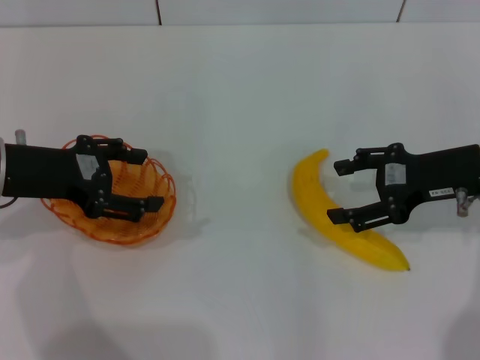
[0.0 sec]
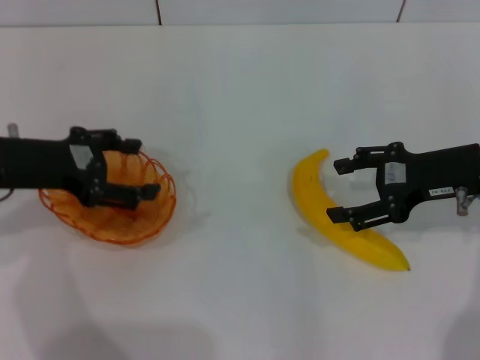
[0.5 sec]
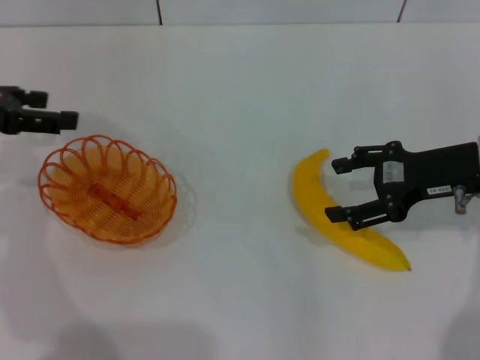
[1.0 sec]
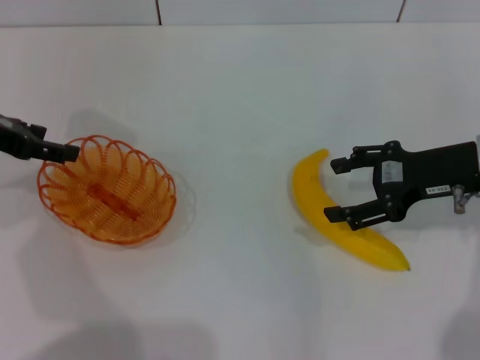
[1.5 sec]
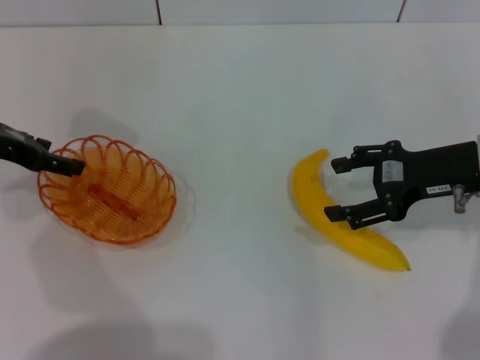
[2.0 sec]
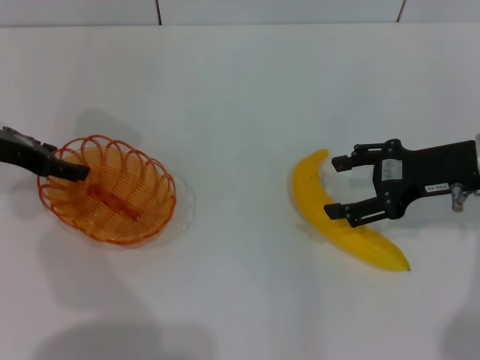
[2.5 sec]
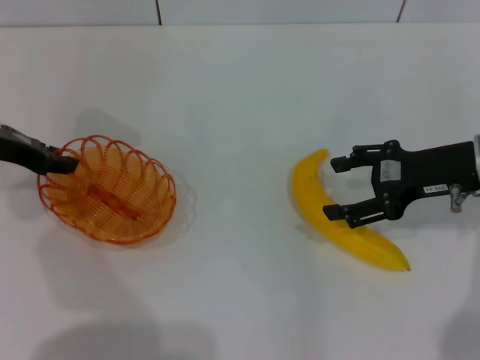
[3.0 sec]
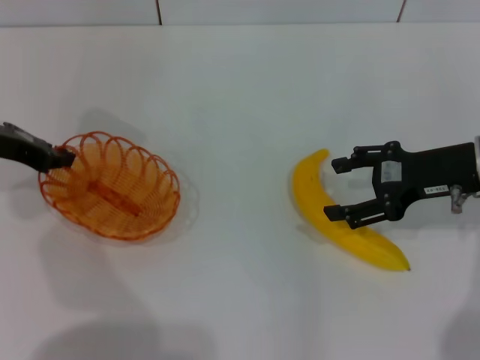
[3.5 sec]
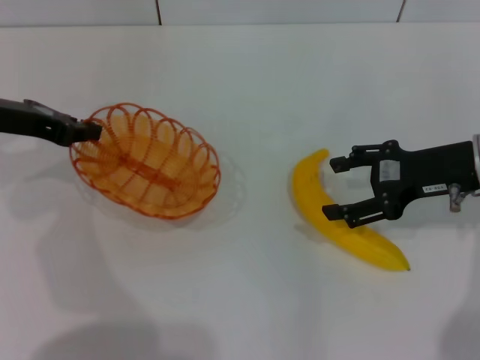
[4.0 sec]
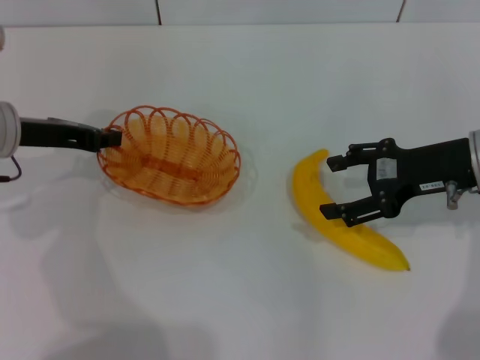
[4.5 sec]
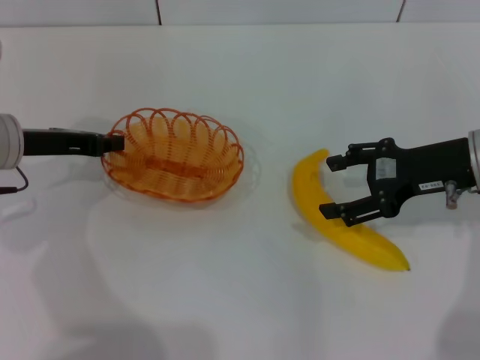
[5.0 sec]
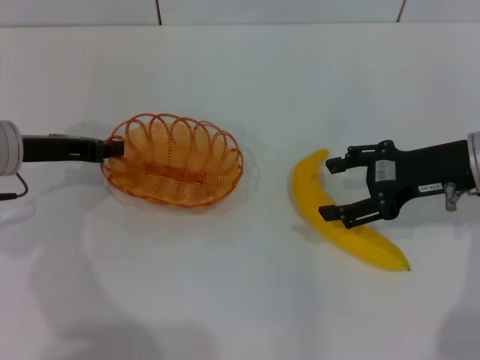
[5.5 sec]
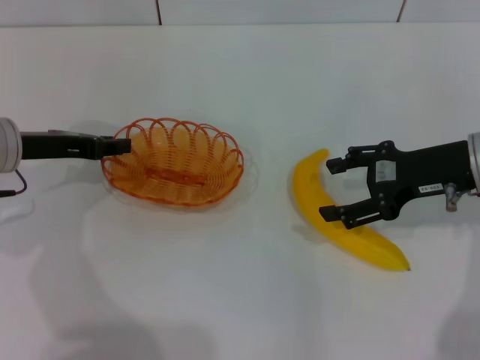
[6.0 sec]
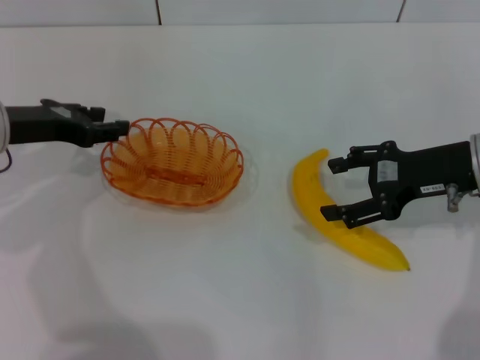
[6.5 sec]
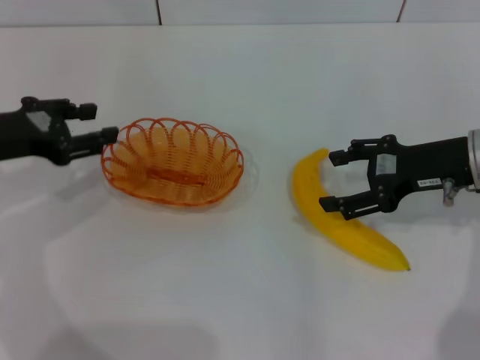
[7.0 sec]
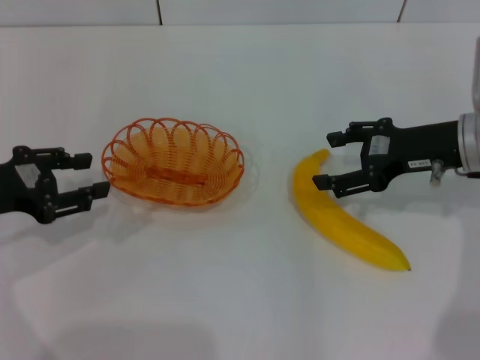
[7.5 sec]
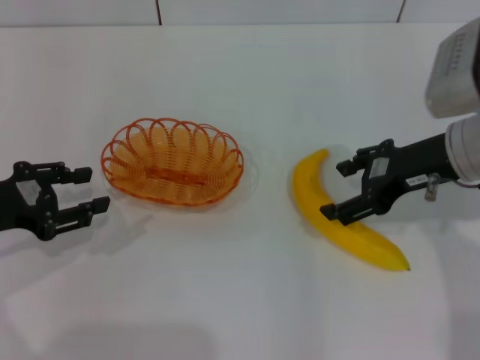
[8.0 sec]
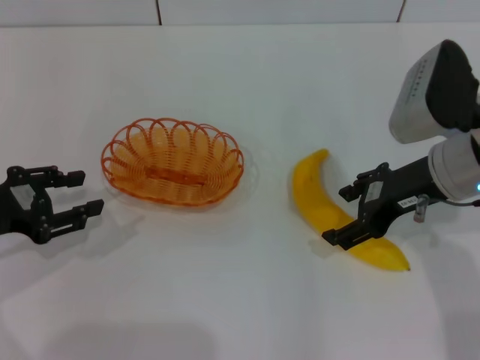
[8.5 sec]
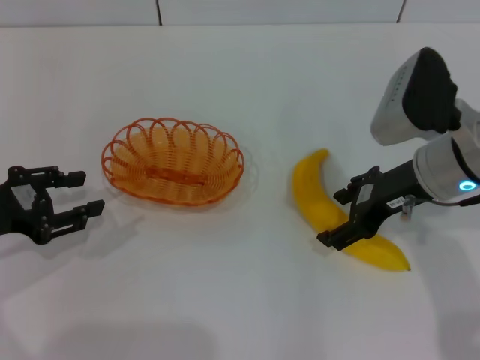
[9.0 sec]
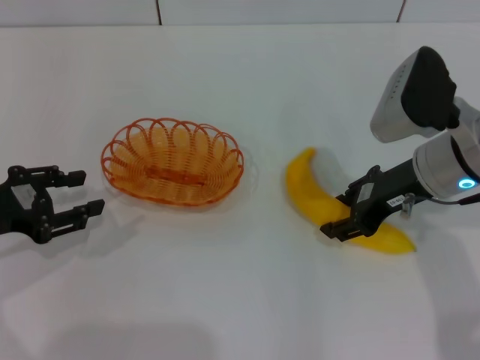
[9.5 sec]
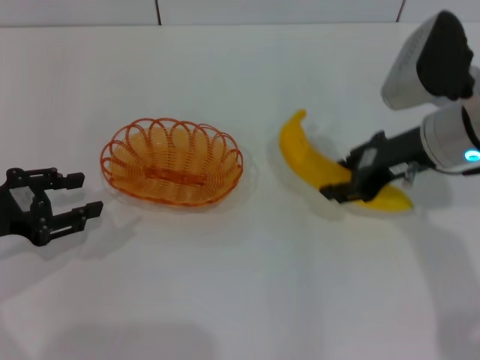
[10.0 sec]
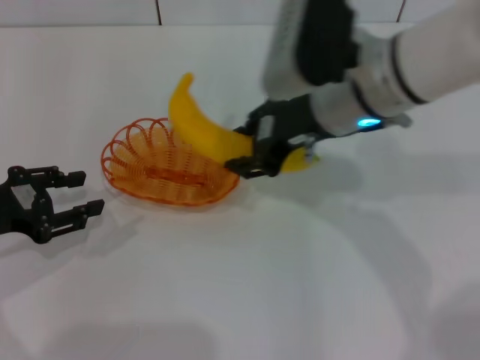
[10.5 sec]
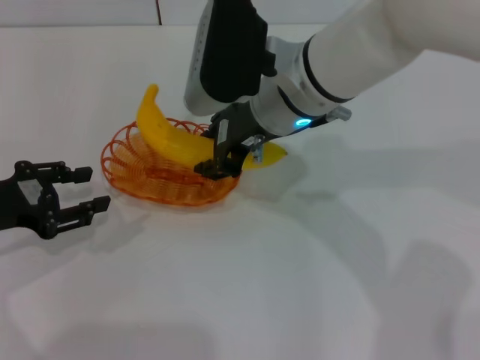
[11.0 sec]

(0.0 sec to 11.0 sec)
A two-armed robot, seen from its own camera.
Step, 0.0 sec - 4.0 sec: Pick up the basket with the left gripper.
Step, 4.5 sec - 6.5 sec: Place the basket in the center of view with the left gripper.
Step, 7.0 sec - 10.0 sec: Pick up the banana with the right gripper.
0.0 sec - 2.0 sec: The left gripper is displaced forward by about 5 cm.
2.0 sec - 3.5 sec: The left gripper closes up.
3.5 sec - 5.5 sec: The left gripper ends up about 5 cm from where it was.
5.5 sec - 7.5 sec: The left gripper goes about 5 cm backward, and opens up.
7.5 sec - 9.0 sec: The right gripper moves to the left, about 5 cm.
9.0 sec - 11.0 sec: The right gripper moves to the left, roughly 15 cm, and closes its fingers.

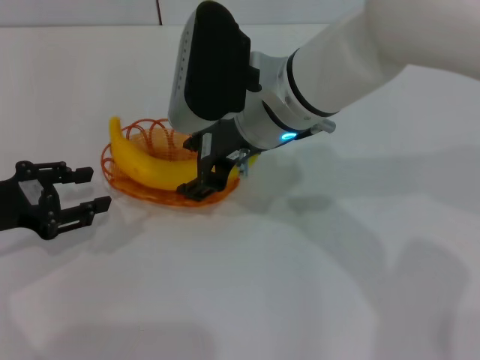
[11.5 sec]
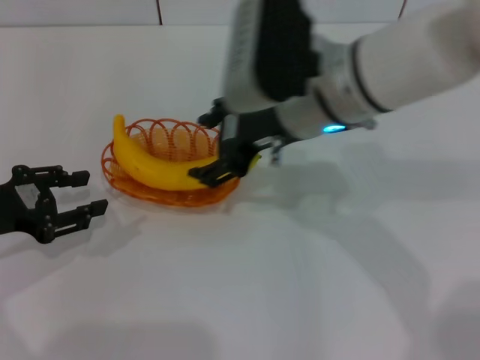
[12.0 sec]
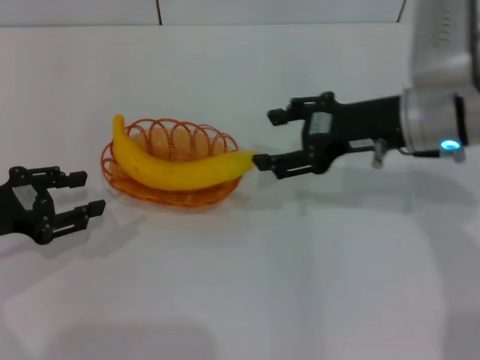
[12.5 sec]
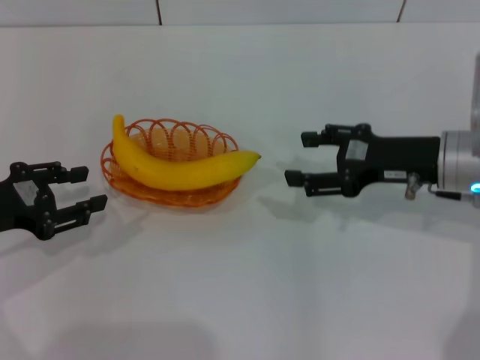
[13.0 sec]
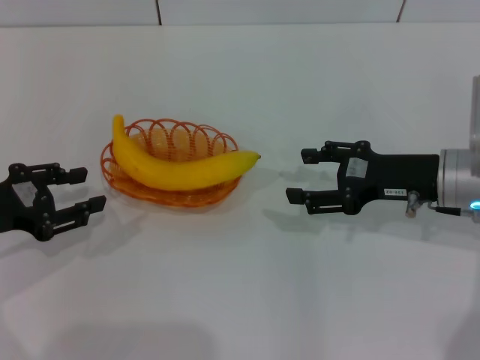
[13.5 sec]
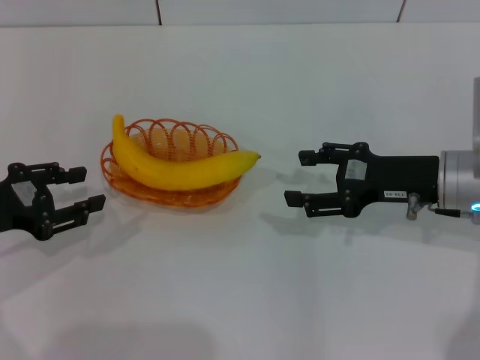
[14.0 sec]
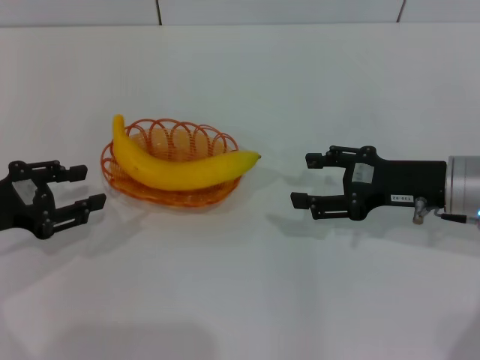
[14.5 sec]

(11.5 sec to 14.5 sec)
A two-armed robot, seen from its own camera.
11.5 sec - 13.0 sec: The right gripper travels to the right by roughly 20 cm, and opens.
13.0 sec - 14.5 sec: The grippers make only small movements.

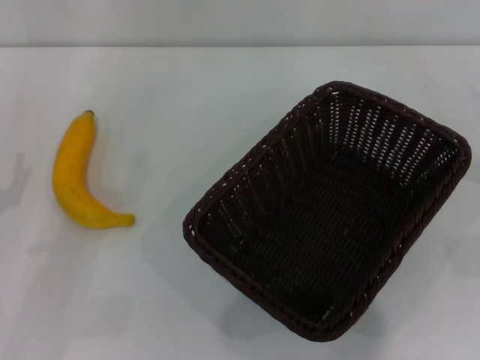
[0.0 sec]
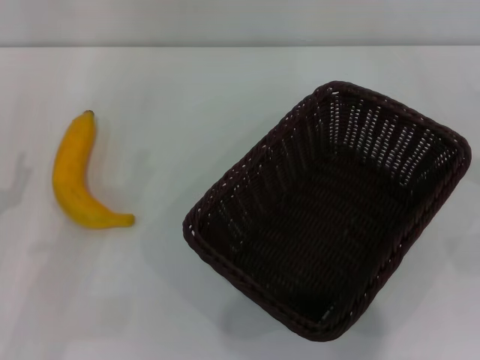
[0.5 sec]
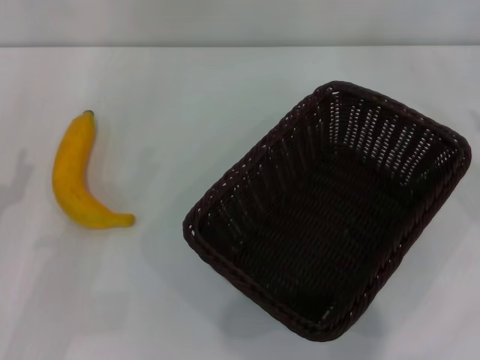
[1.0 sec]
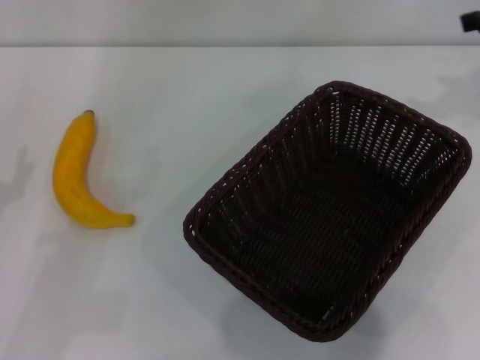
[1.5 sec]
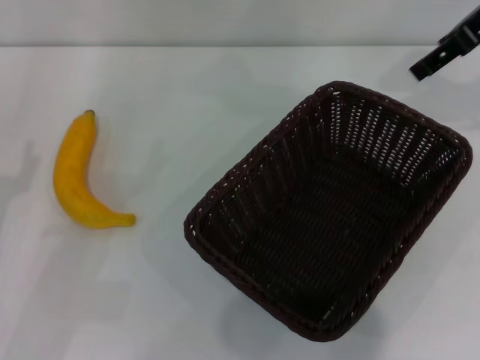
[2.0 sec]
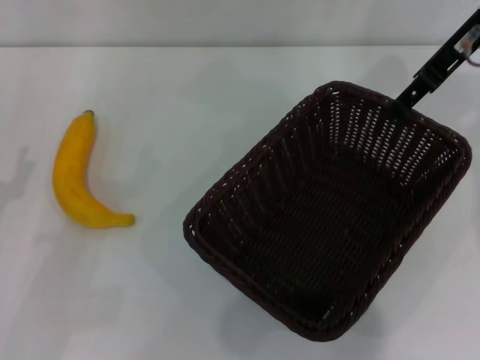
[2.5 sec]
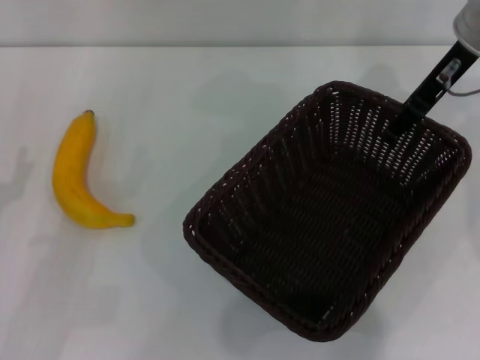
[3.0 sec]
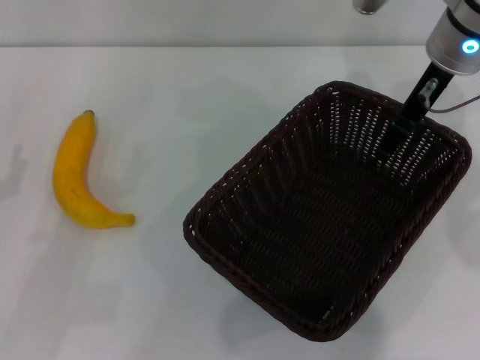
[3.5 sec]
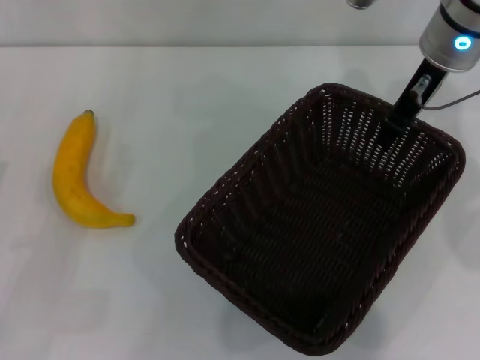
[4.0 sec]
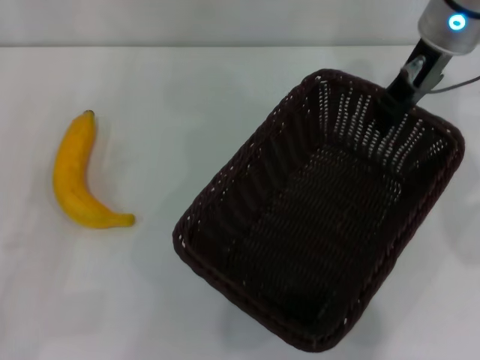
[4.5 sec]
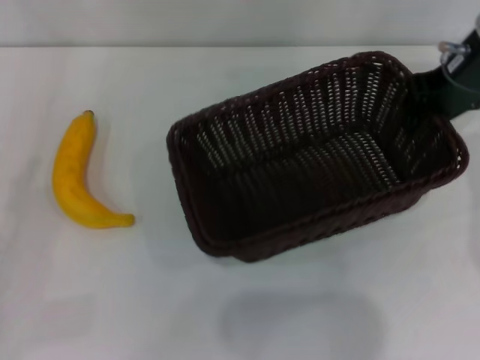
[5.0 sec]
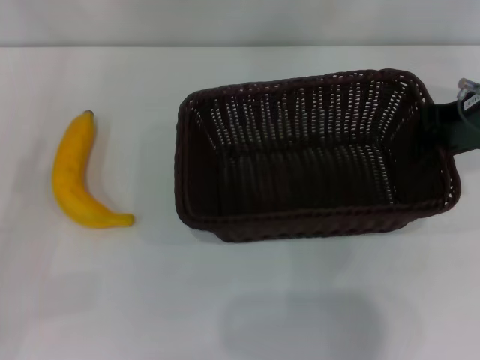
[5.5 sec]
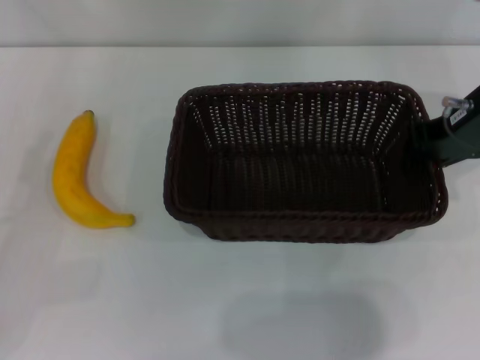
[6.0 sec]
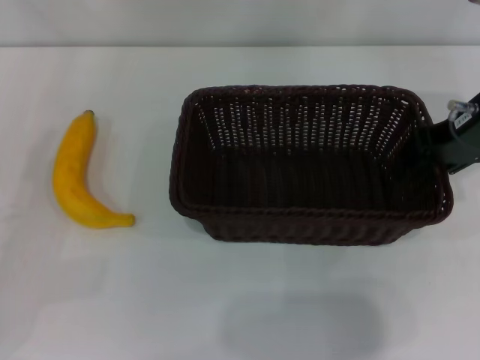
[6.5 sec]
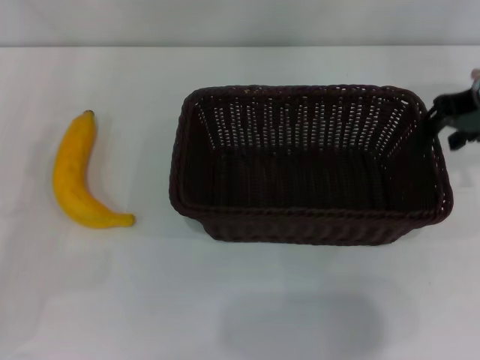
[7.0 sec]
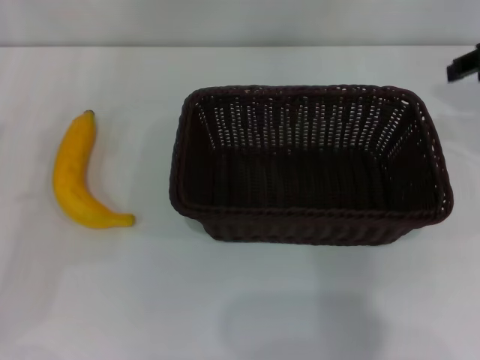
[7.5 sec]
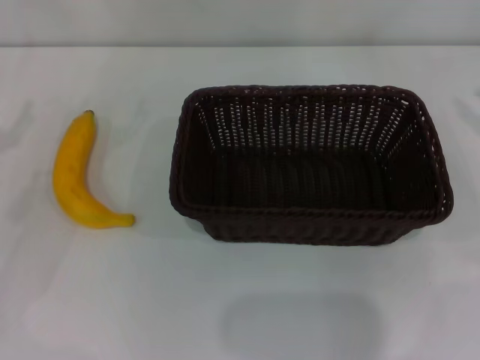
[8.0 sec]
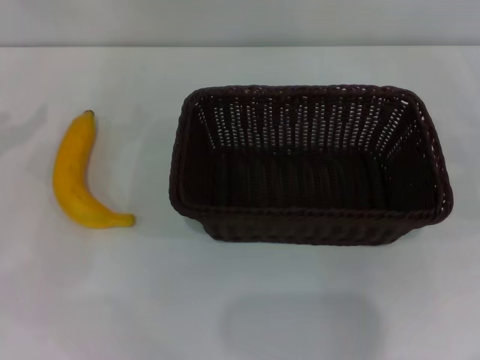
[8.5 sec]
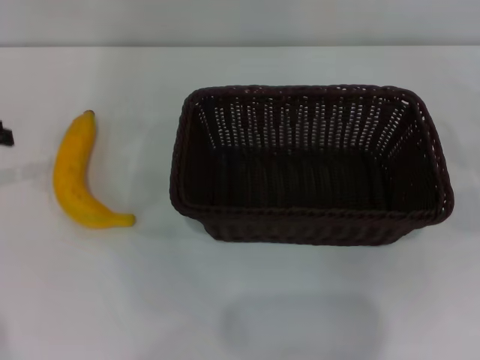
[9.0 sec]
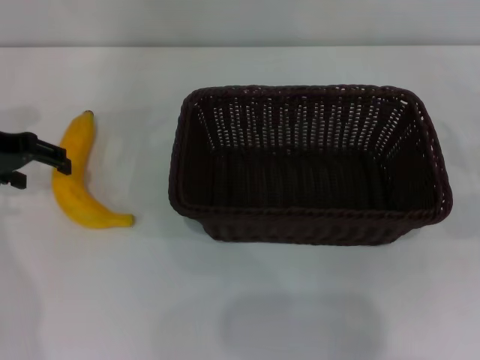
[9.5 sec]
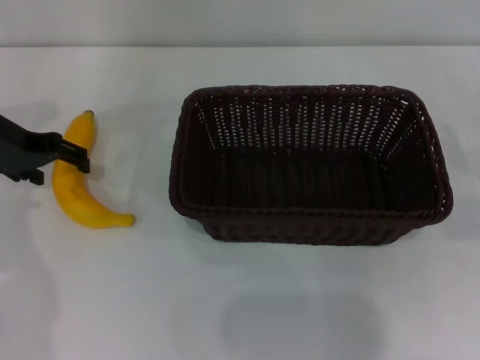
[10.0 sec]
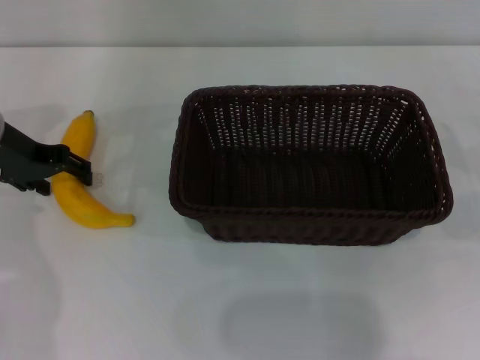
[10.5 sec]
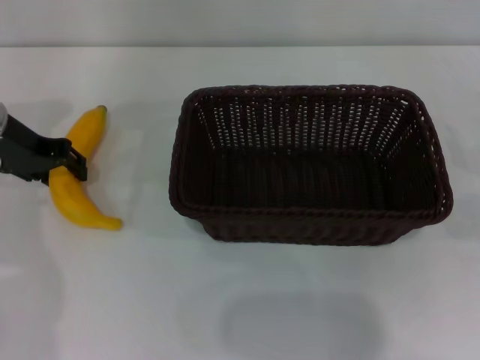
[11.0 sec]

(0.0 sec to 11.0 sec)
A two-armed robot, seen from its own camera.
Step, 0.0 sec - 4.5 sec: Pick up the dark basket with the right gripper.
Step, 5.0 sec - 7.0 sec: Place the dark basket in the center of view with the right gripper.
0.0 sec - 2.0 sec: The right gripper goes approximately 35 cm upward, forward and to the left.
2.0 sec - 3.5 sec: The right gripper travels downward and to the left by roughly 10 cm.
3.5 sec - 5.5 sec: The left gripper is displaced to the left by roughly 5 cm. The right gripper moves to the right and backward, approximately 10 cm, and closes up.
5.5 sec - 7.5 sec: The left gripper moves approximately 5 cm; the right gripper ends up roughly 5 cm from where it was, and opens its fingers.
7.5 sec - 9.0 sec: The right gripper heads downward, to the right and backward, covering about 25 cm.
9.0 sec - 11.0 sec: The left gripper goes some 10 cm to the right, forward and downward, and closes its fingers.
